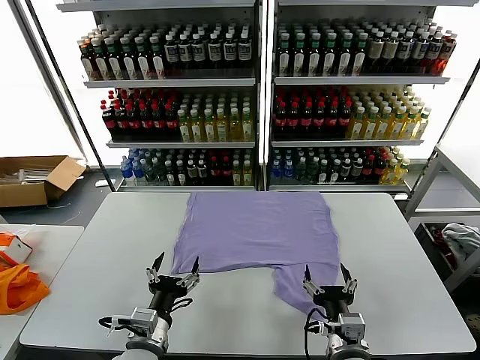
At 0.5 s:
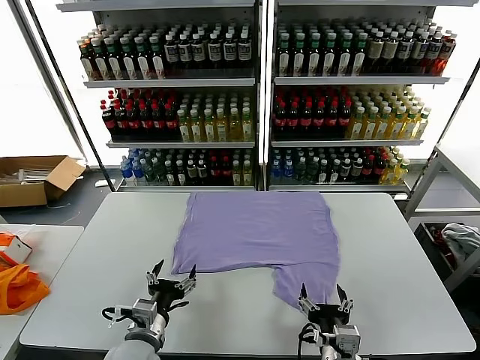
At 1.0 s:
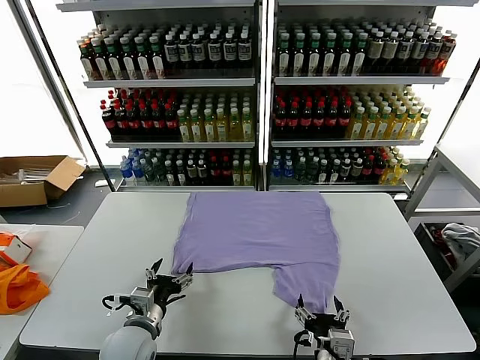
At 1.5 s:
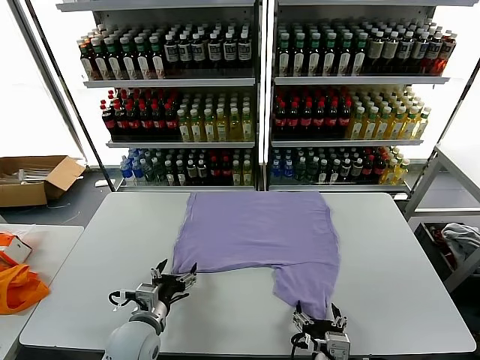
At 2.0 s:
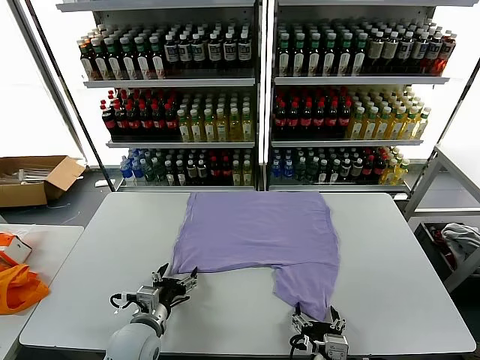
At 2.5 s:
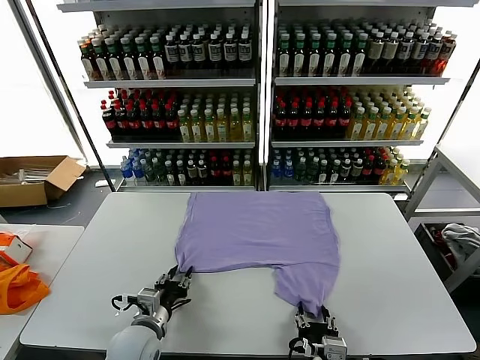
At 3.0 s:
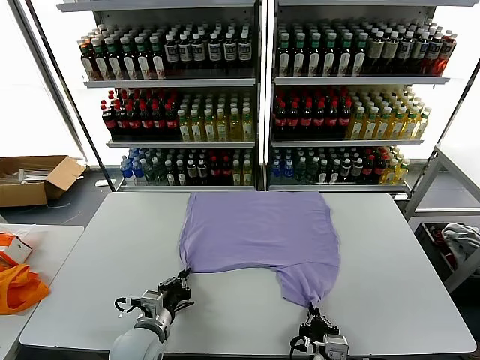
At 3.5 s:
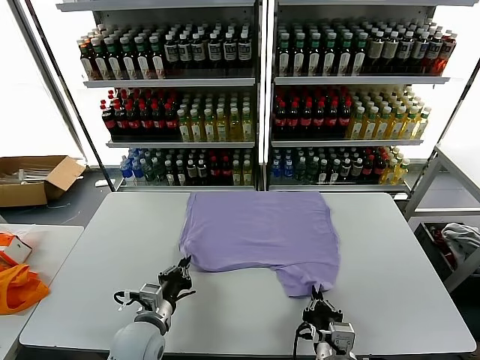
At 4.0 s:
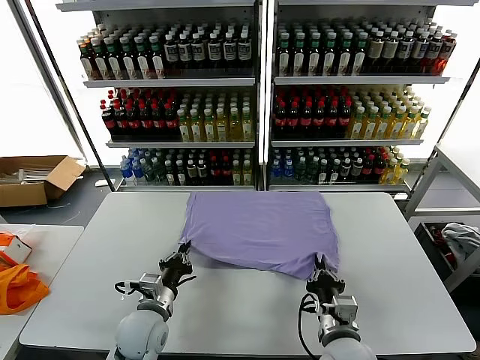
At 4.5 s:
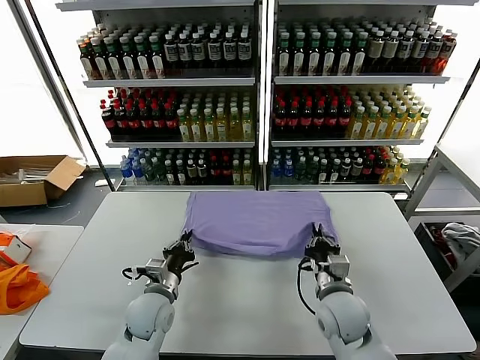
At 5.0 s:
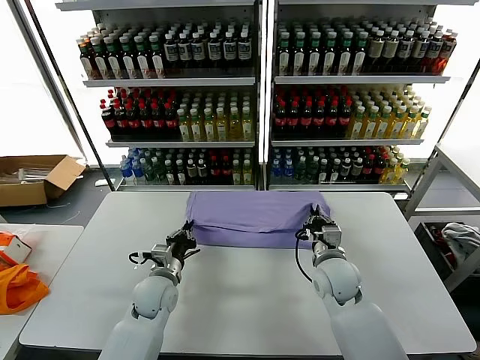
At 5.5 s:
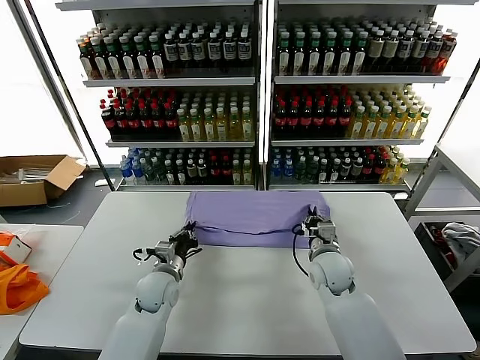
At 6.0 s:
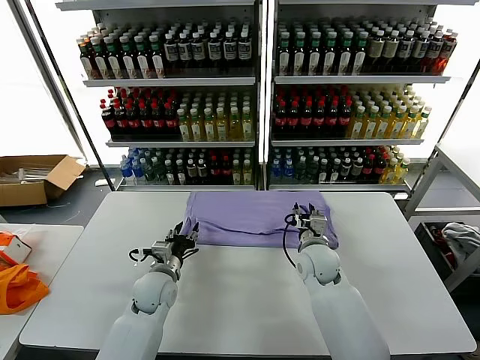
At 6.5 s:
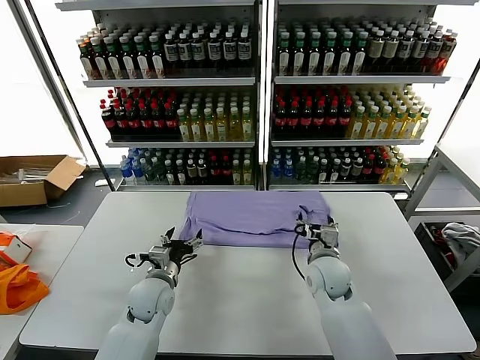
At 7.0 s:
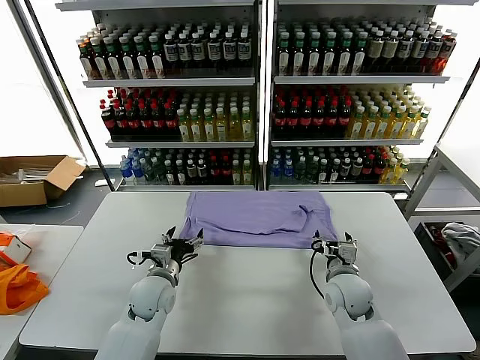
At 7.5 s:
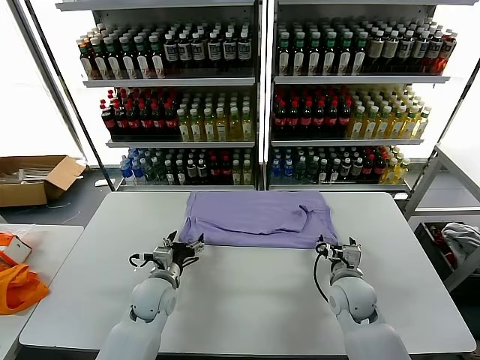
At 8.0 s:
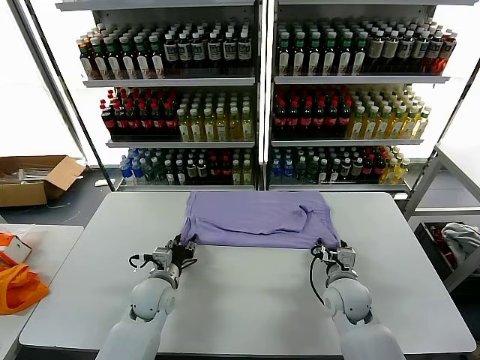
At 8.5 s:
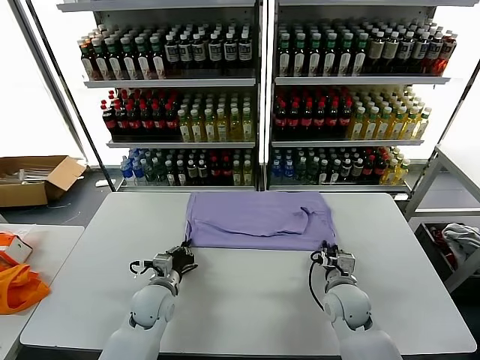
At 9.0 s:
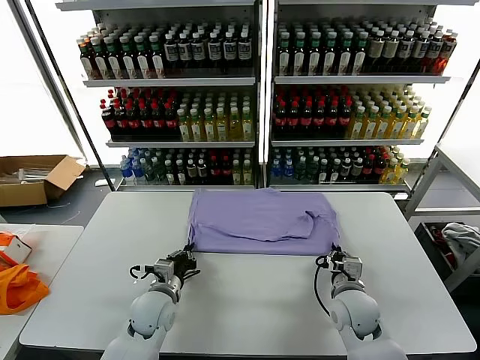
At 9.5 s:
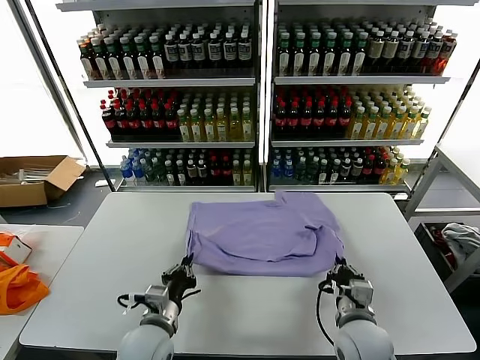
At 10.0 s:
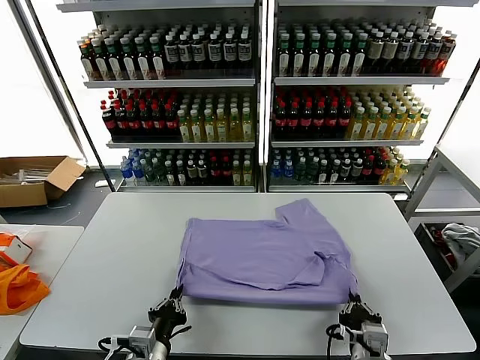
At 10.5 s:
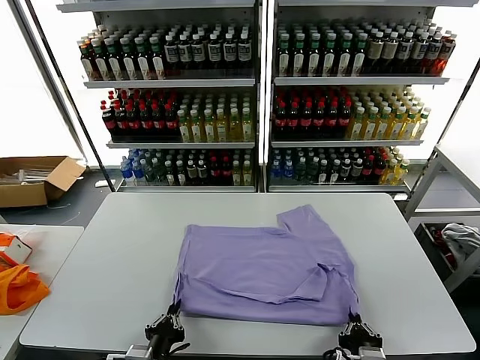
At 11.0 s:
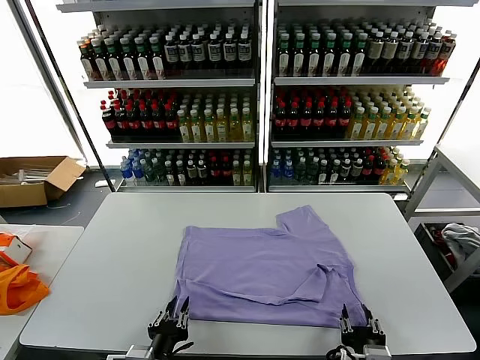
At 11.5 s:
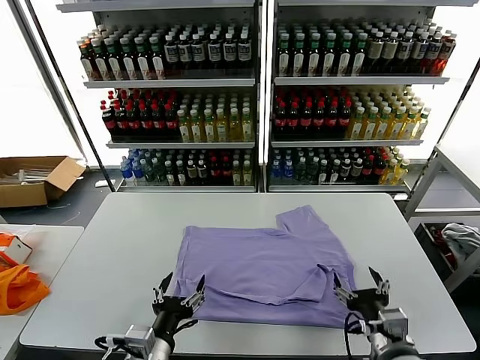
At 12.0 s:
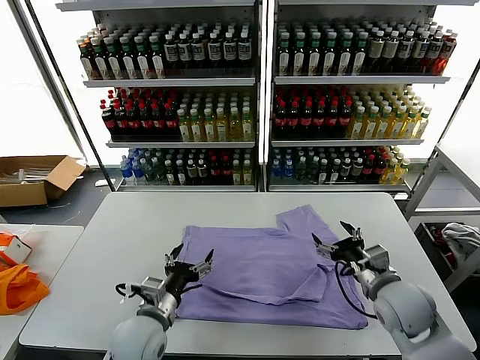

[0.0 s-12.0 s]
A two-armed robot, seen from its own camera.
Task of the whole recording: fold and organize the clothes.
Step, 0.0 to 3.0 s: use both grippers simultaneously to clamp the lower edge of the clothing fabric.
Step, 3.5 to 6.0 s: use both grippers to drag the lower edge of the fabric forward and fold it over the upper edge.
Step, 6.5 to 11.0 s: Drag the clothes downward with both gripper.
2.0 to 4.0 s: The right gripper heads forward, covering some 10 cm, and closes. Meanwhile the left gripper closes up.
4.0 to 6.0 s: The right gripper is displaced forward by about 20 cm, and opens its fingers. The left gripper moves forward, about 10 cm, and opens its fingers.
6.0 to 8.0 s: The left gripper opens, then closes once more; the right gripper heads backward and to the right, covering roughly 10 cm.
8.0 to 10.0 s: Both grippers move backward, some 20 cm. The left gripper closes its fingers. The right gripper closes.
10.0 to 12.0 s: The left gripper goes about 10 cm forward, and opens; the right gripper goes approximately 20 cm forward and to the right, and opens up.

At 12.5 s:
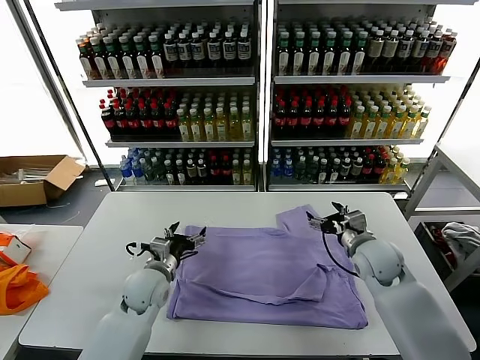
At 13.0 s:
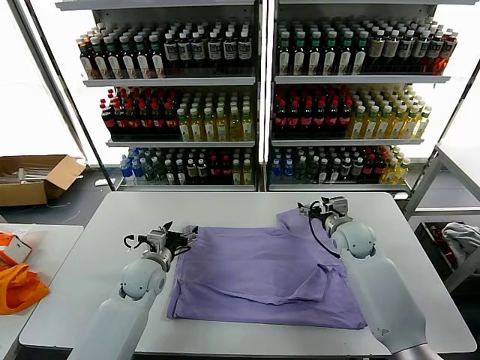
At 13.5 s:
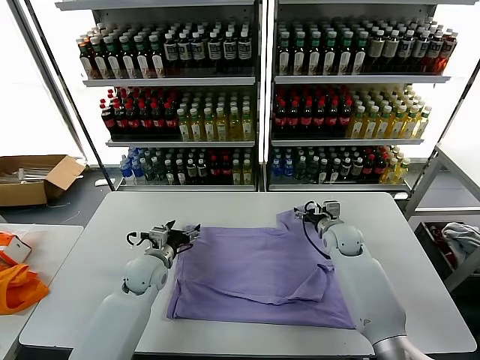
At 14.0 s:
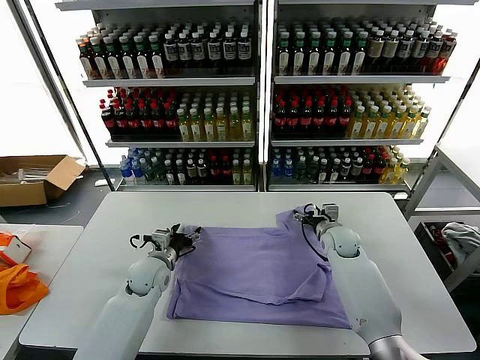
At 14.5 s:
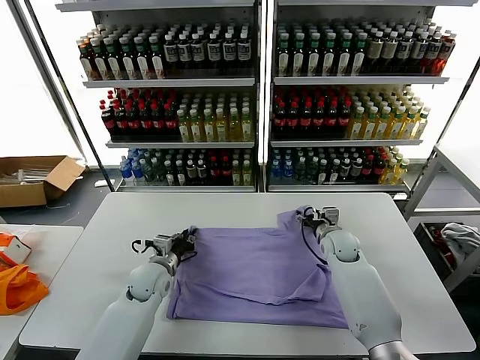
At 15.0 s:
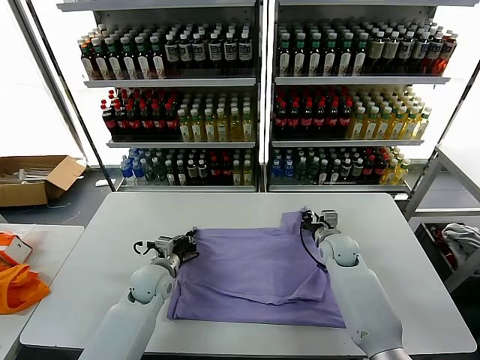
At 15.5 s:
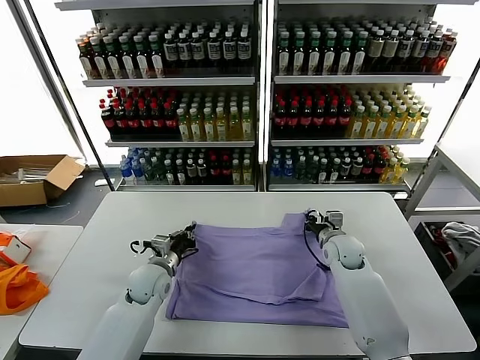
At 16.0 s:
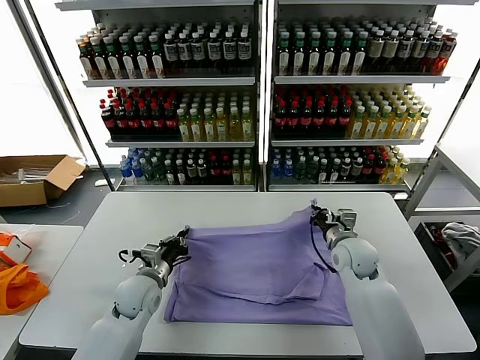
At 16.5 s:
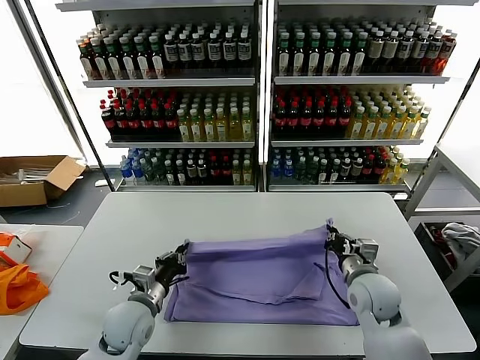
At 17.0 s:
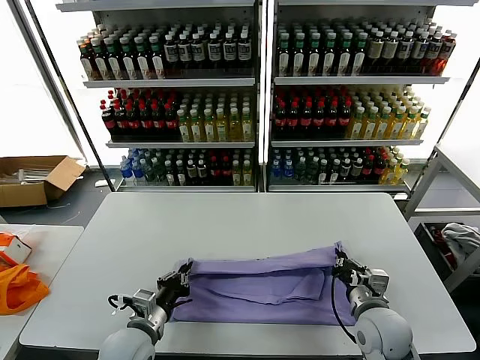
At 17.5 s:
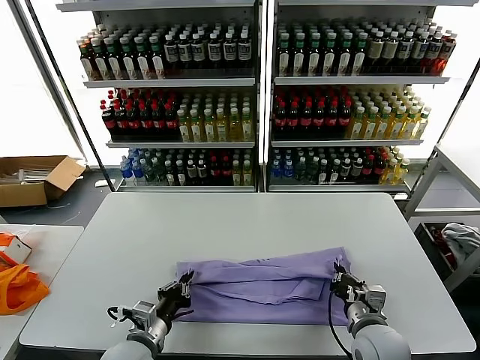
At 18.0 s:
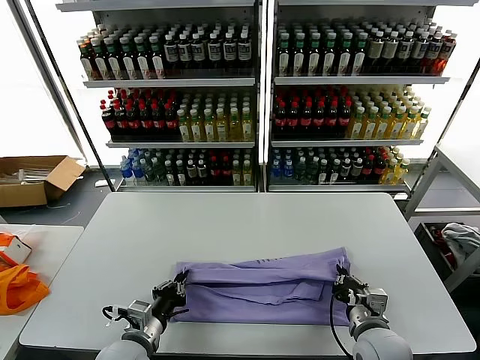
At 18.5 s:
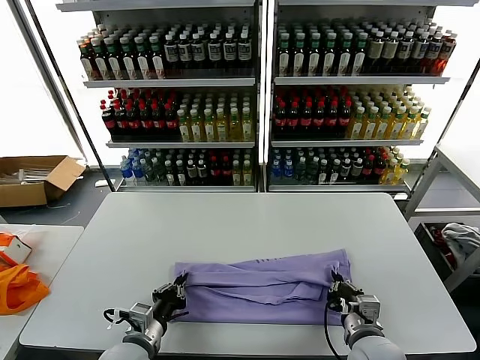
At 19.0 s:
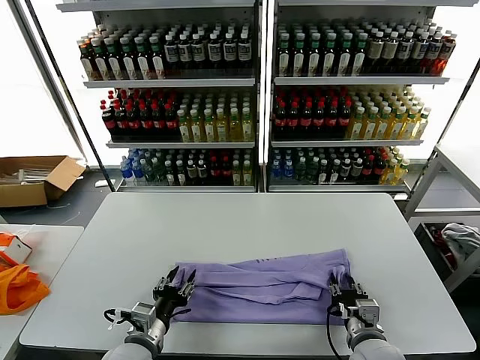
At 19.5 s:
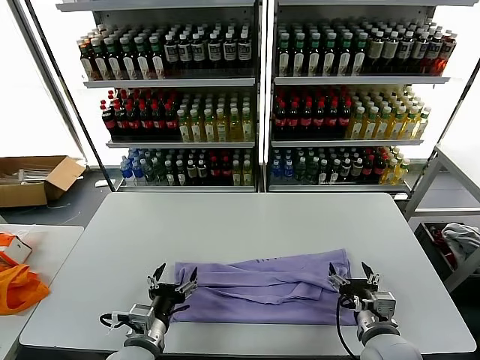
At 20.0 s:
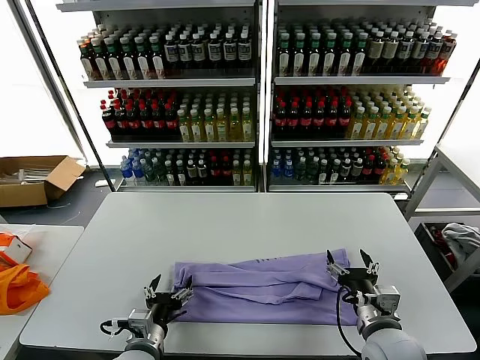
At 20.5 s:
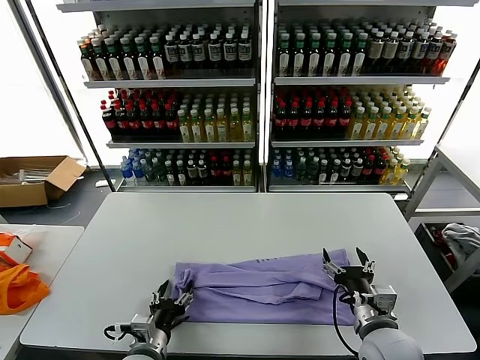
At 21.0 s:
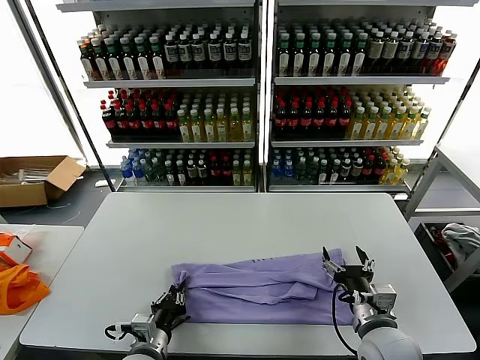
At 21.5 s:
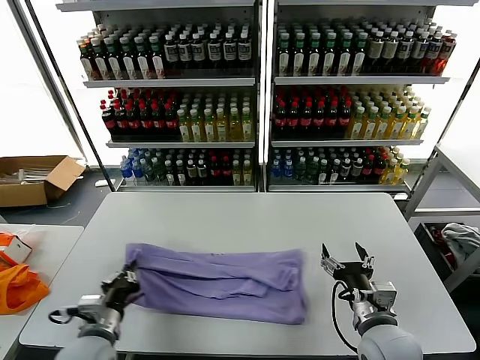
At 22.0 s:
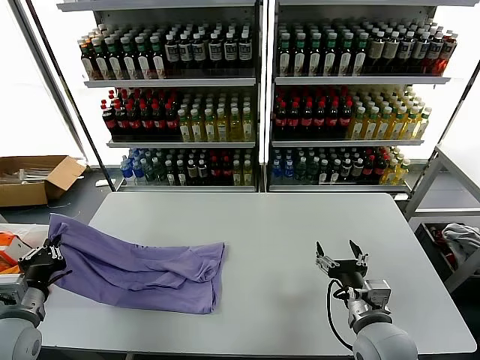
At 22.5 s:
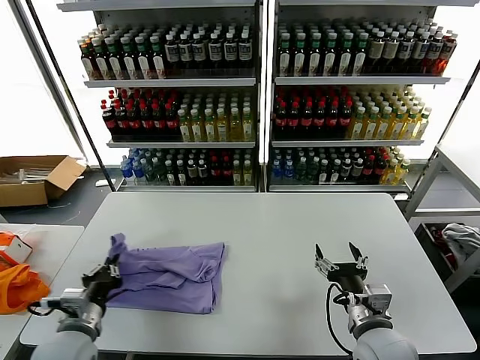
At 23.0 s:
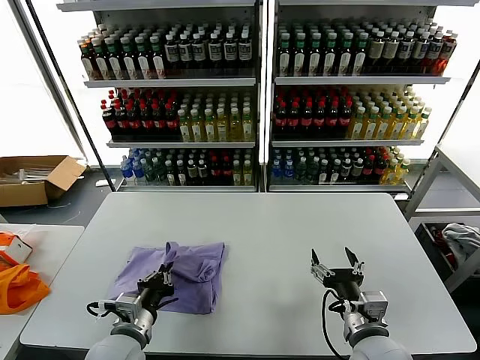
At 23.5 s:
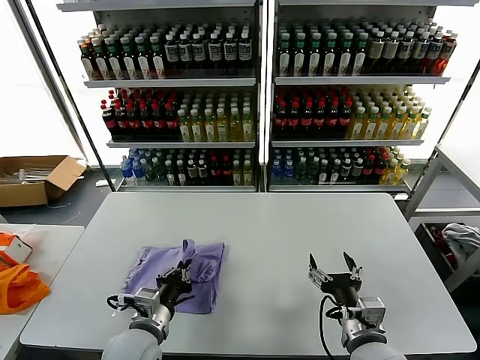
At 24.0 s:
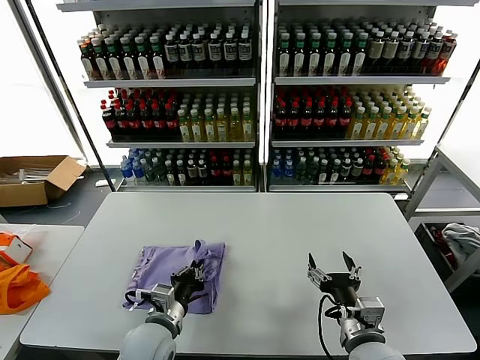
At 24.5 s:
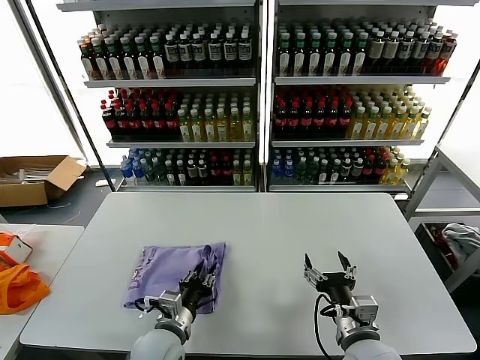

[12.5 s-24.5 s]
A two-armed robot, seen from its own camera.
Task of the whole recording: fold and organize the clothes.
Step, 12.5 to 15.5 s: use both grippers simultaneously to clamp the upper edge of the clothing fabric.
Step, 16.0 to 19.0 s: use both grippers to drag the upper edge of the fabric backward and fold it over the lower edge.
Step, 19.5 to 21.0 s: use the left gripper to clamp the left edge of the fabric.
12.5 to 14.5 s: The left gripper changes place by roughly 5 cm, and closes up; the right gripper heads downward and forward, covering some 10 cm.
14.5 to 16.5 s: The right gripper moves backward, some 15 cm, and closes, while the left gripper travels backward by some 10 cm.
16.5 to 18.5 s: The two grippers go some 10 cm backward.
18.5 to 20.5 s: The left gripper opens up. Meanwhile the right gripper opens.
20.5 to 22.5 s: The left gripper travels to the left and upward by some 15 cm, and closes its fingers.
22.5 to 24.5 s: The left gripper heads to the right and downward, covering about 15 cm.

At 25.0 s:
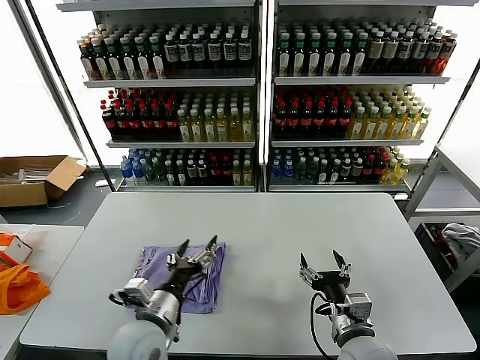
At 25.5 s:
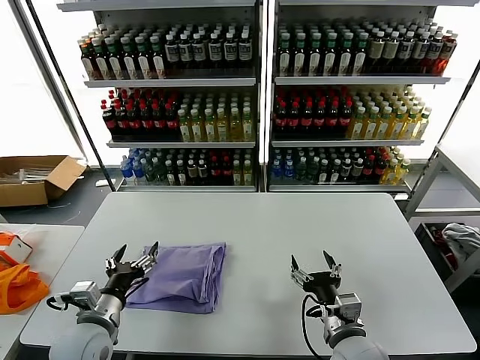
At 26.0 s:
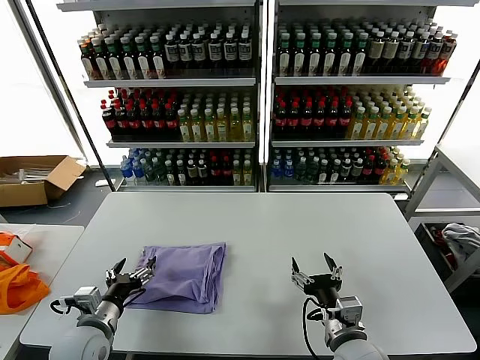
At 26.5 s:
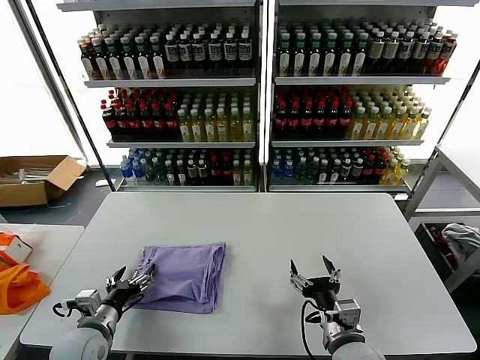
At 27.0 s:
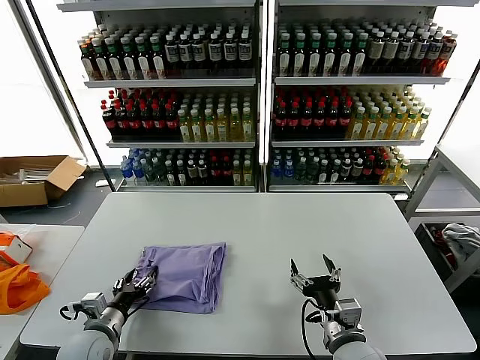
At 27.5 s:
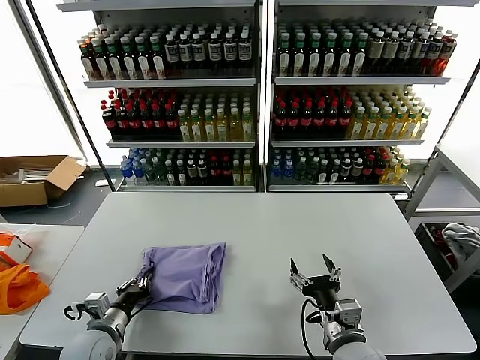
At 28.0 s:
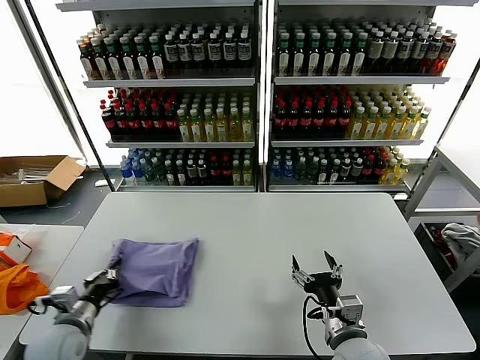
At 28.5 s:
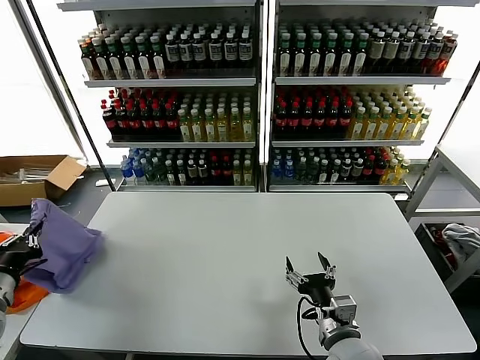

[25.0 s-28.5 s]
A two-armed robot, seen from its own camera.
Task of the whole recording: fold and organize the clothes.
25.0 to 27.0 s: The left gripper goes about 15 cm to the left and downward.
27.0 to 28.5 s: The left gripper moves to the left and upward, roughly 20 cm, and closes up.
